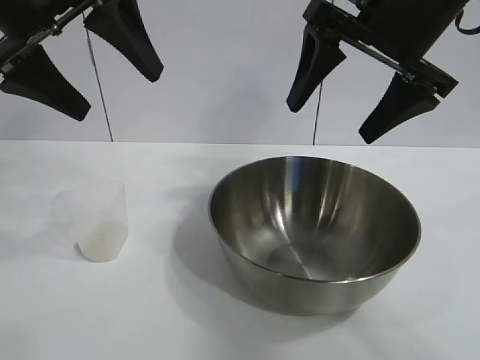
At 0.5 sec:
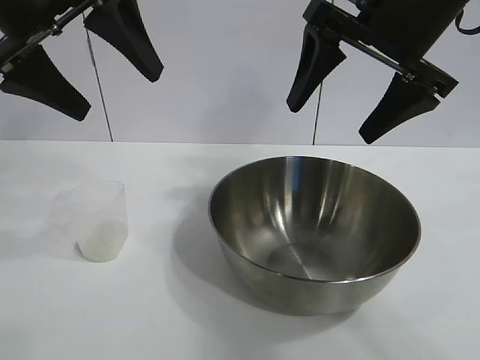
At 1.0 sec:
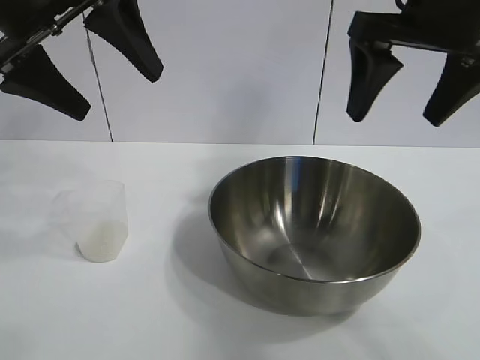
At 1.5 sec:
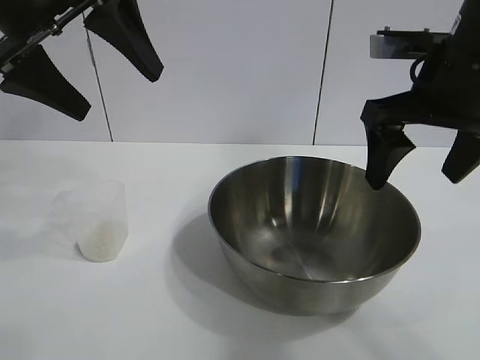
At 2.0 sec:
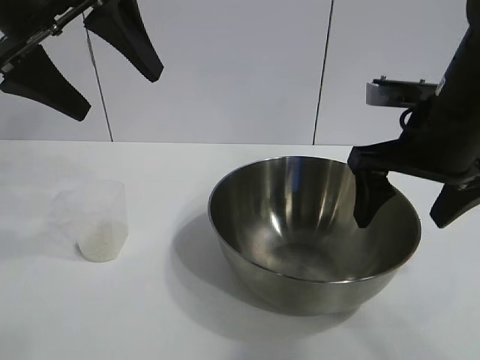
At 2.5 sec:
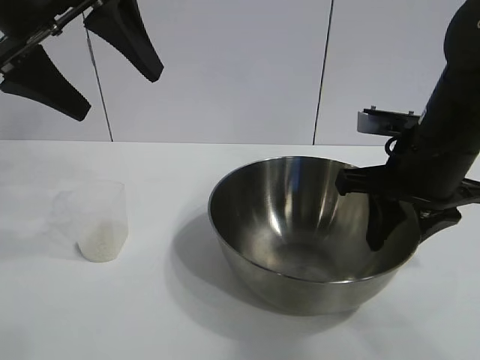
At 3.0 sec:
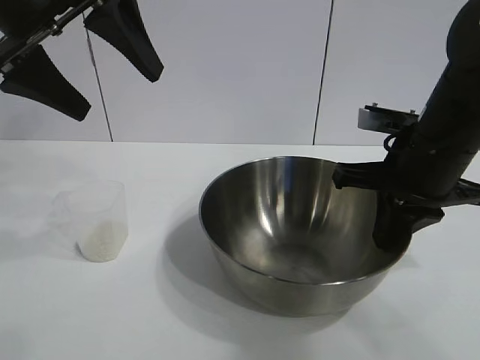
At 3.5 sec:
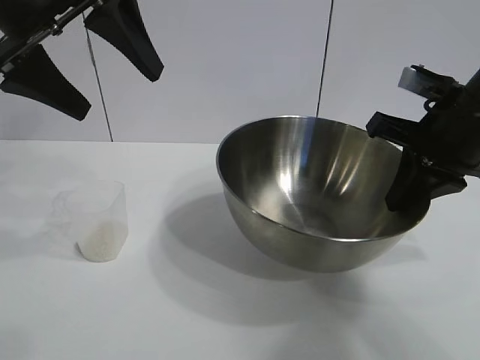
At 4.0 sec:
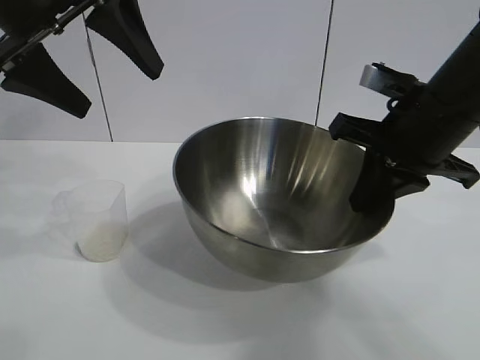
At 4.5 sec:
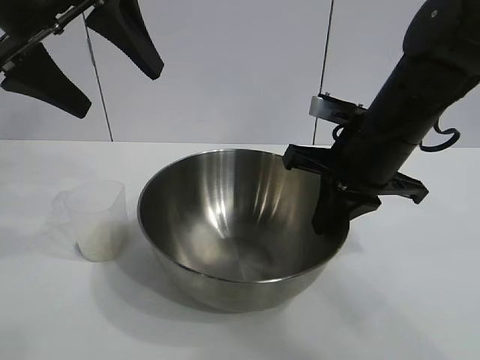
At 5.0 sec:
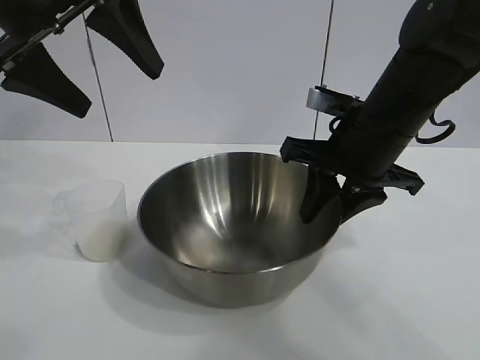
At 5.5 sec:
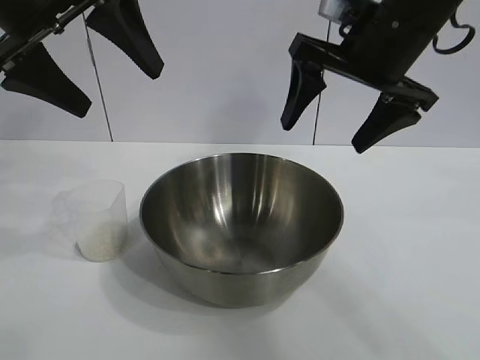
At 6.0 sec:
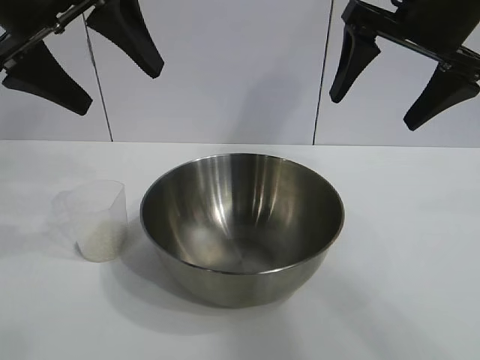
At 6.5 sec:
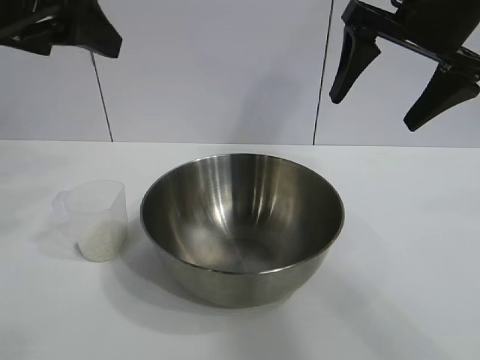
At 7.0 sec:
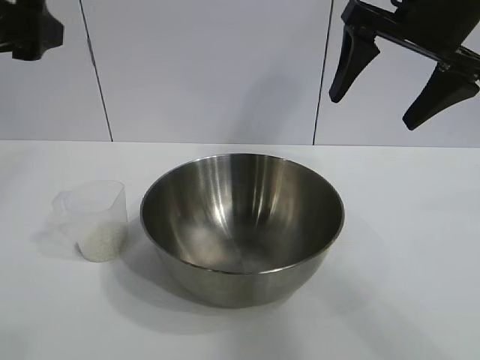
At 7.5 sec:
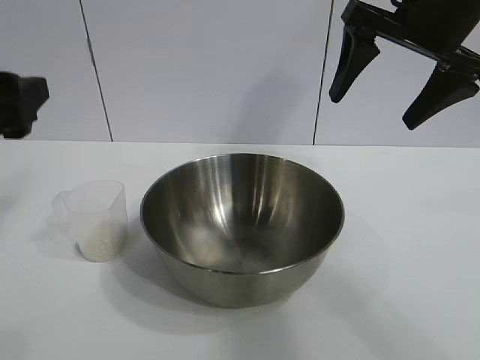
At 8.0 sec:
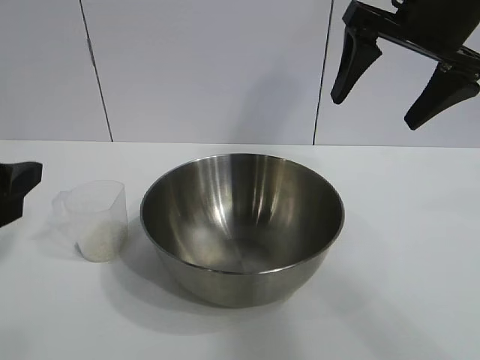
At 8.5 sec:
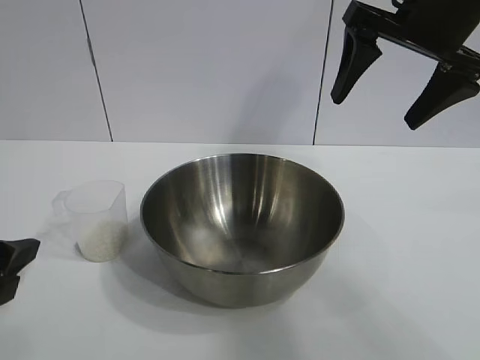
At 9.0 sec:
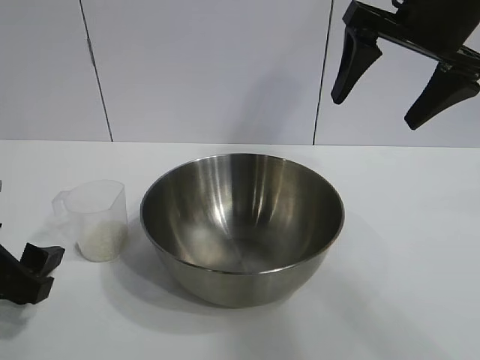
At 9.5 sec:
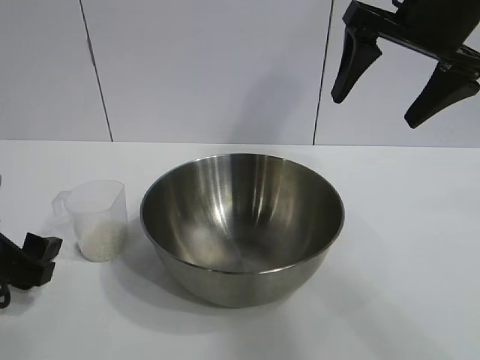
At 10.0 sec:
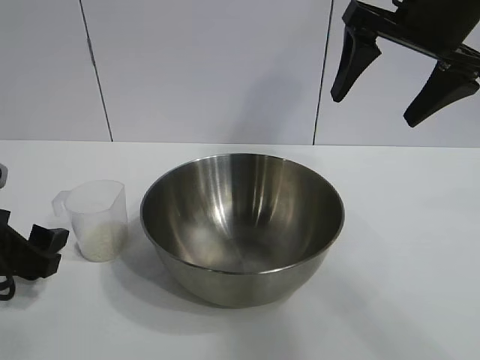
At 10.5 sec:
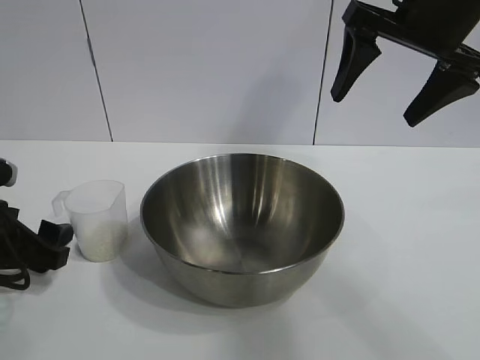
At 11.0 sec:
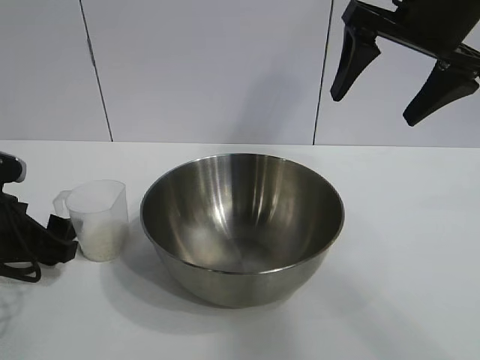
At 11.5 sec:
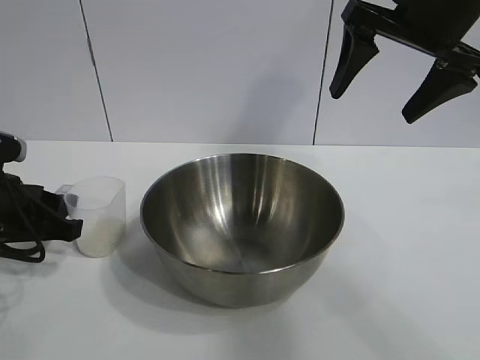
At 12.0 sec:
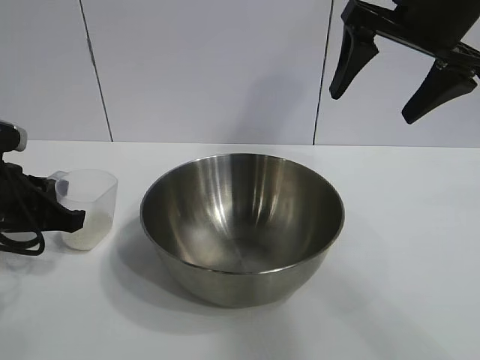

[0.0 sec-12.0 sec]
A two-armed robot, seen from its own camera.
Task of the whole recording: the right gripper grasp the rice container and place it in the center of the table, the left gripper grasp the rice scoop and pour the rice into the rice container.
Step, 1.0 sec to 4.5 sec: Move the bowl in the center of view with right gripper.
Step, 5.5 sec to 11.5 sec: Grasp the cup with rice in it with left gripper.

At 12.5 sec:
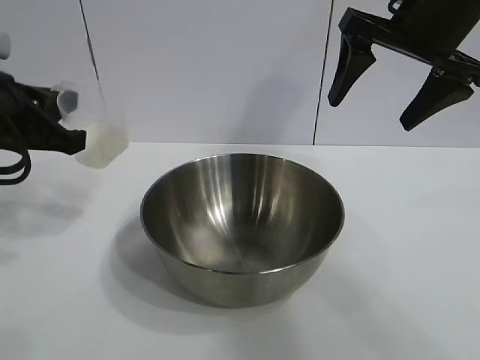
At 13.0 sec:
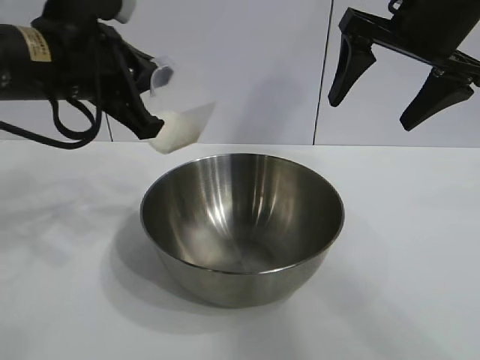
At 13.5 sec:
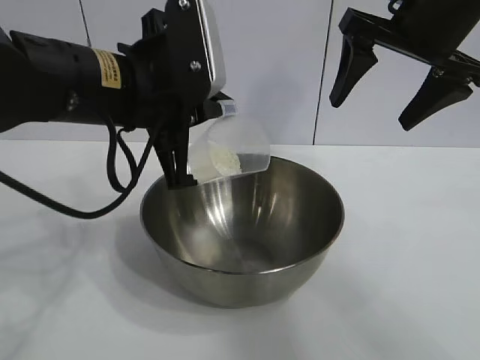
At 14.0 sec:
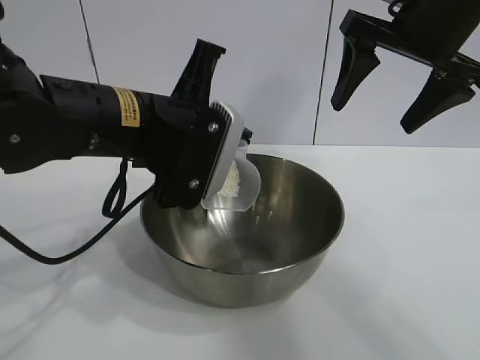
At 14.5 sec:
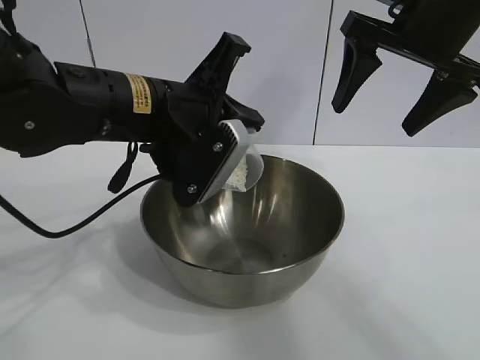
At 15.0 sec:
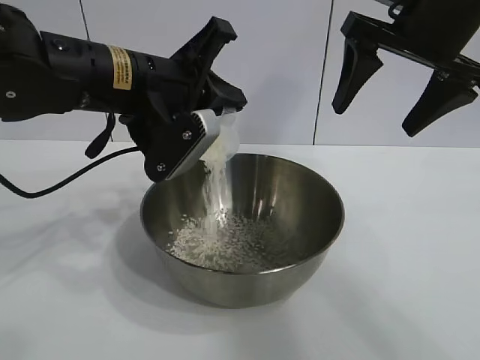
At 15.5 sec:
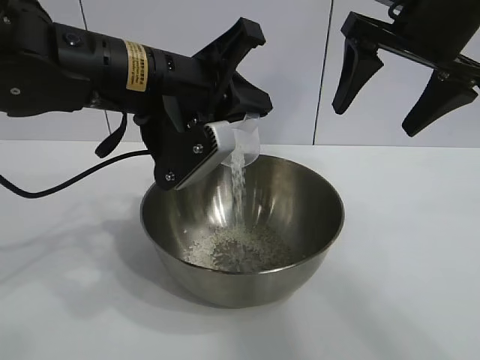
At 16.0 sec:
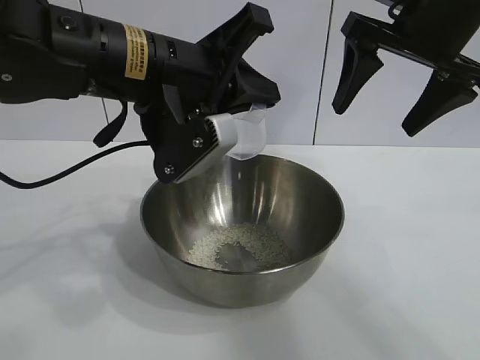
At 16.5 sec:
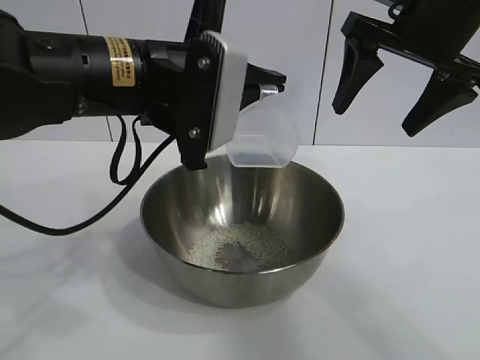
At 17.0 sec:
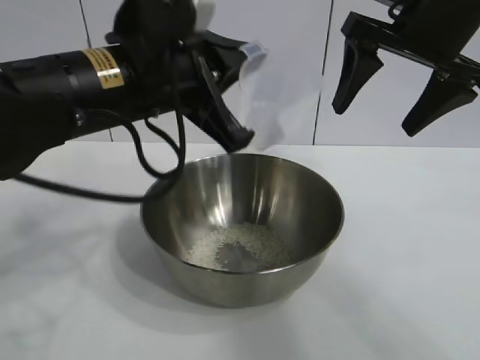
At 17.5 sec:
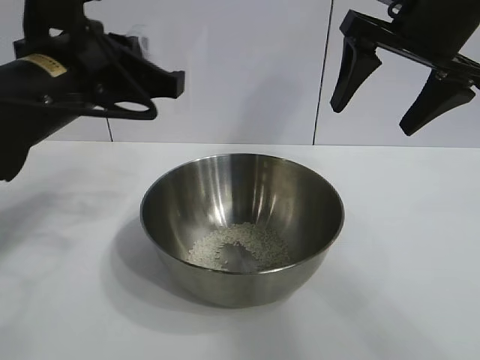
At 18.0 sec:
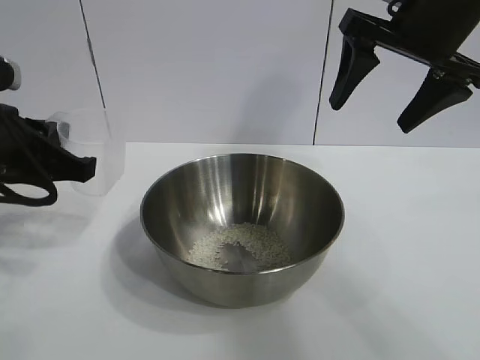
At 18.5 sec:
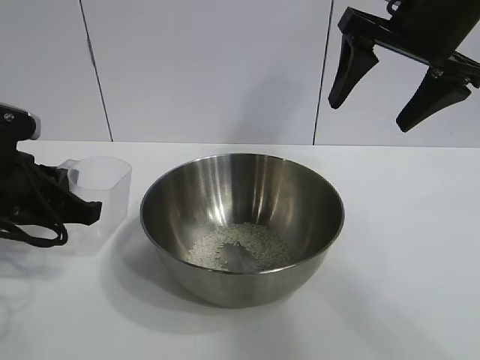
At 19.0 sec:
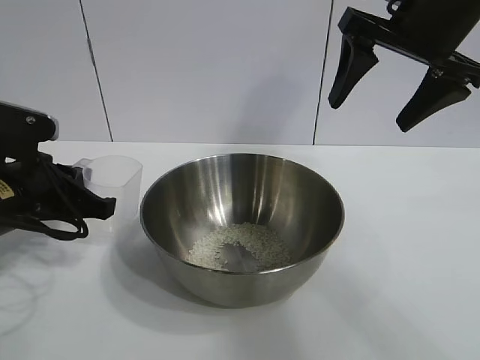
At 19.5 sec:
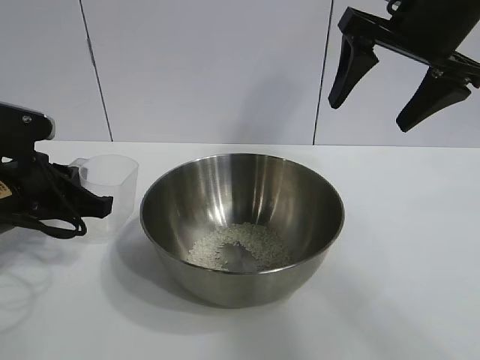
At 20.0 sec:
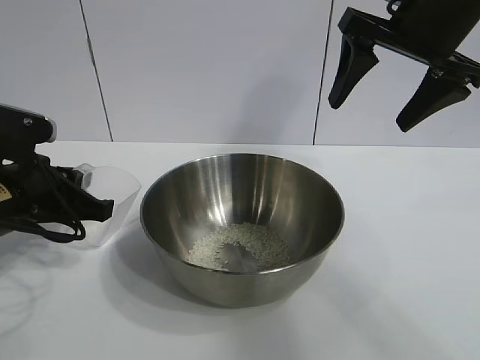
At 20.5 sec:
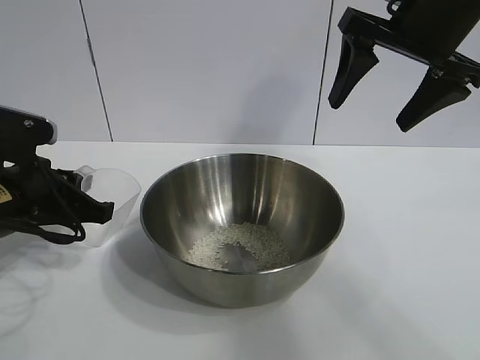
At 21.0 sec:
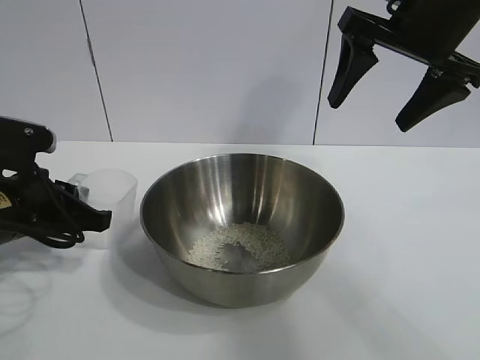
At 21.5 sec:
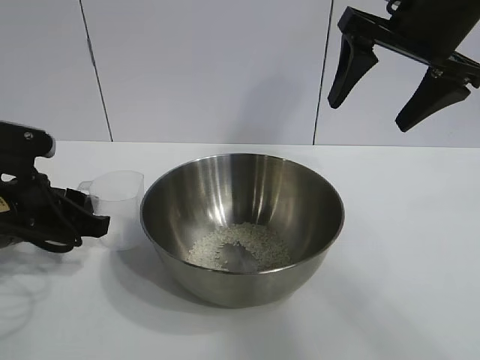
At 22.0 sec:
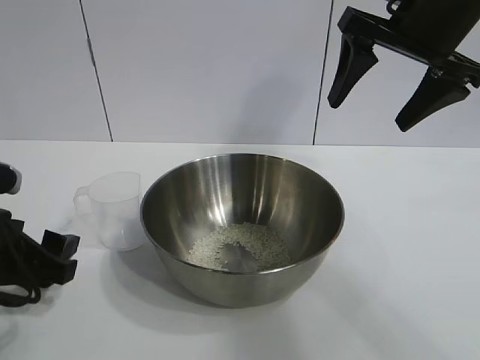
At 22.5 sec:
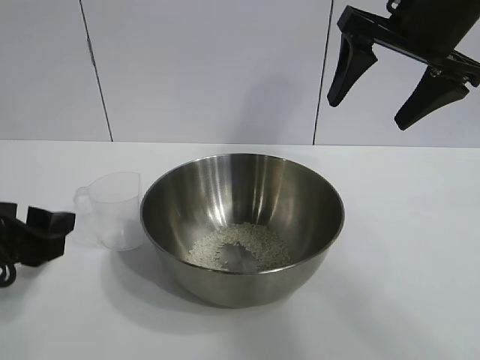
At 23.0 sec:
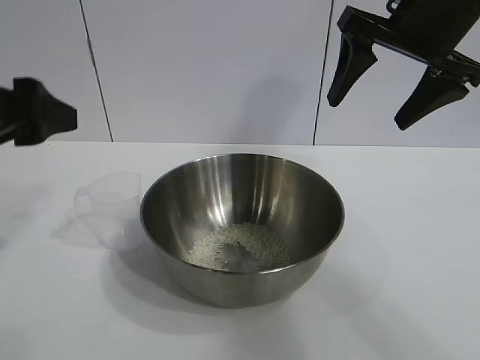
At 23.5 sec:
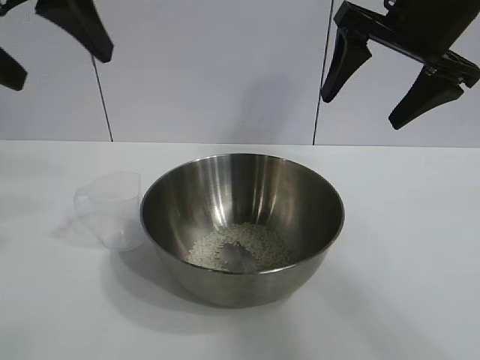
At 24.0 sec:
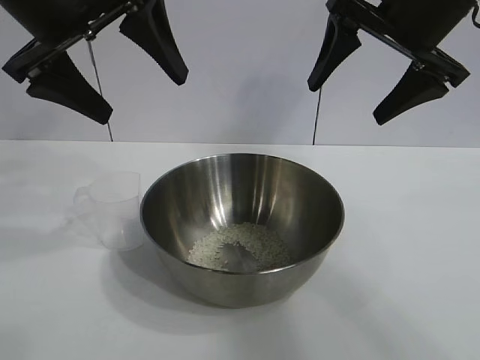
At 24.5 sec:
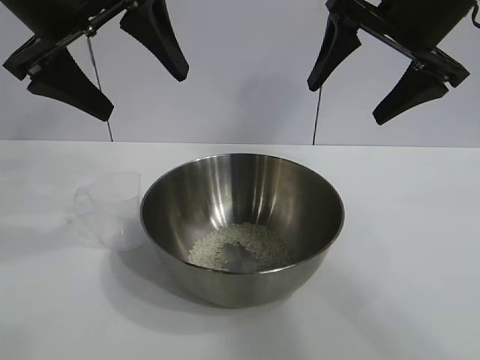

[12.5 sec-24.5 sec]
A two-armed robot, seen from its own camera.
Task of the whole recording: the right gripper grasp the rice container and place it in the center of the table, the left gripper grasp the rice scoop and pour the rice into the rice container.
Step, 12.5 sec to 15.5 sec: Pour the rice from the cup into the bowl with the left gripper.
Step, 16.0 sec to 20.5 sec: Place the cup on the table with the left gripper.

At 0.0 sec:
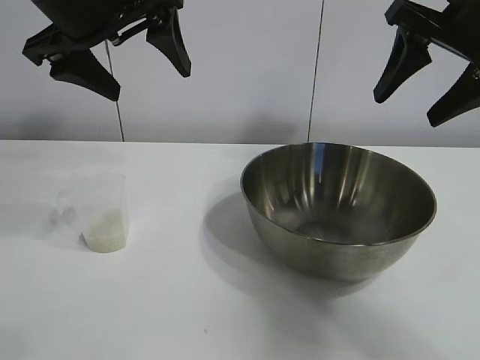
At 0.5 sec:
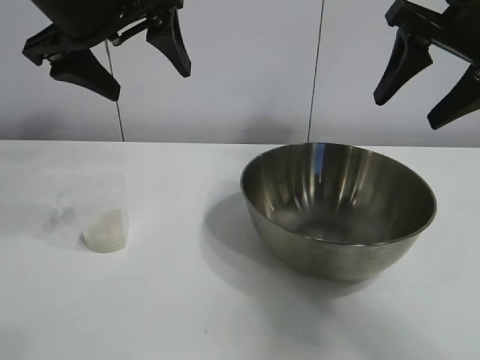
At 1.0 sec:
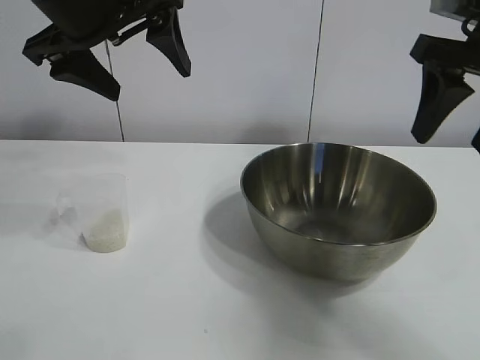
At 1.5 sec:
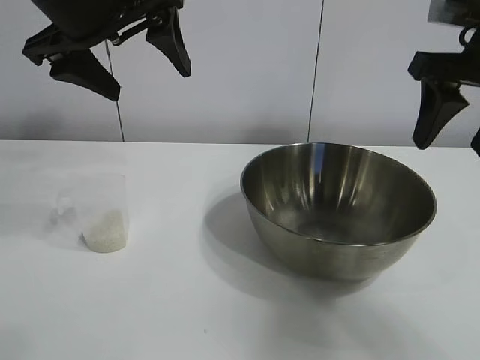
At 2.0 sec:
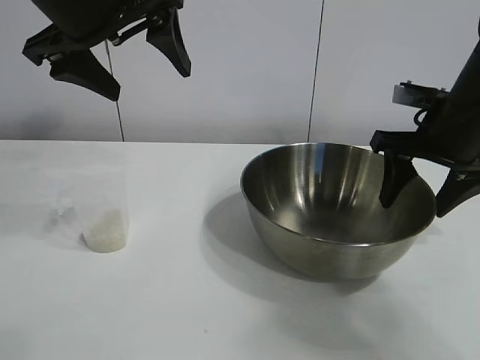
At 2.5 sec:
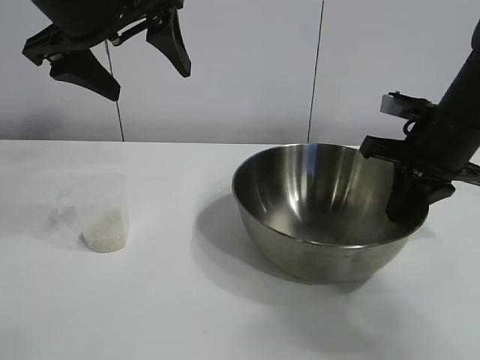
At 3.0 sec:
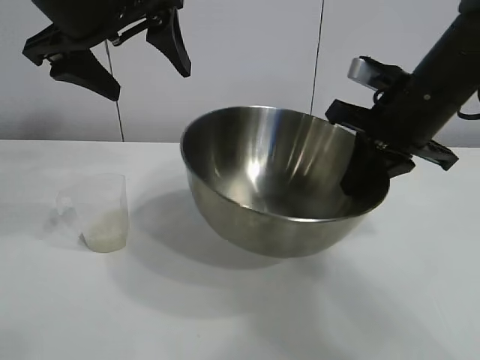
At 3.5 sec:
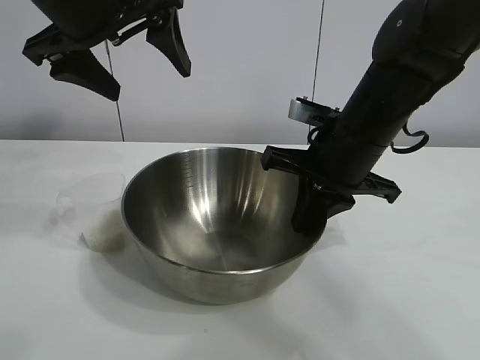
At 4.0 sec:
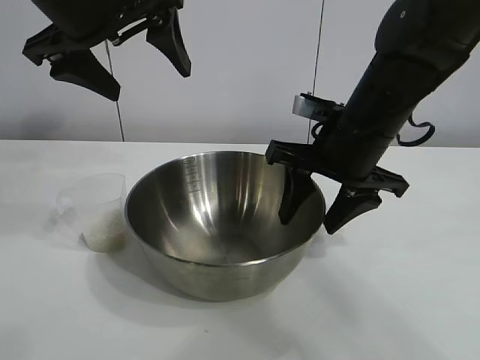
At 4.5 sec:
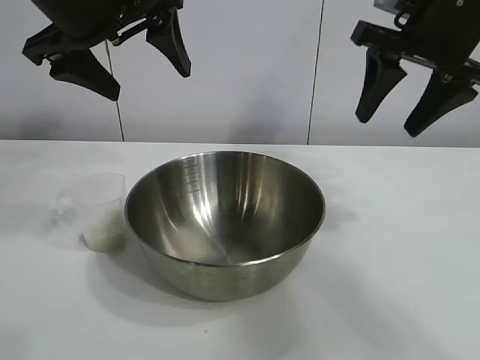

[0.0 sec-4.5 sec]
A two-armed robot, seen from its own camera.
Task of the whole recording: the right gripper grasp the rice container and place it in the center of the table, the left gripper grasp the rice scoop and pour the rice into the rice container.
Step, 1.0 sec to 3.5 sec: Move the bowl in the center of view with right gripper.
